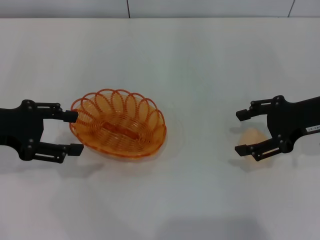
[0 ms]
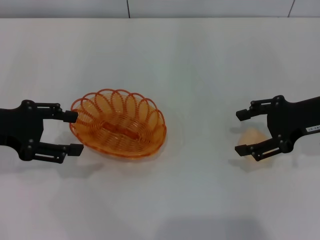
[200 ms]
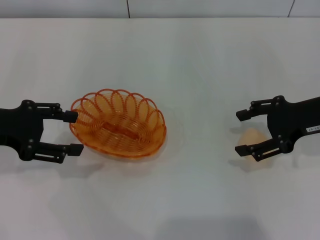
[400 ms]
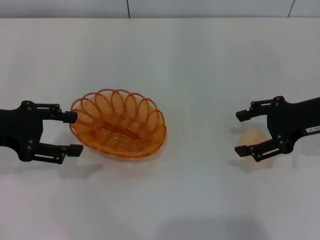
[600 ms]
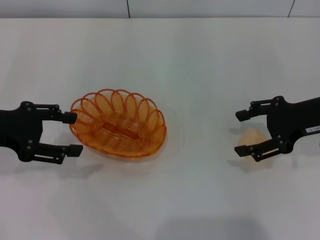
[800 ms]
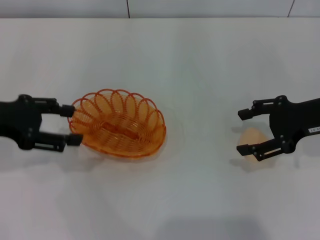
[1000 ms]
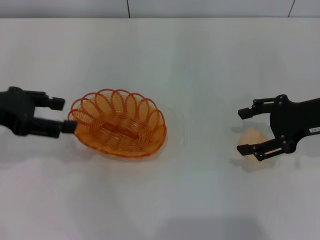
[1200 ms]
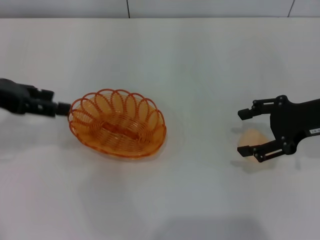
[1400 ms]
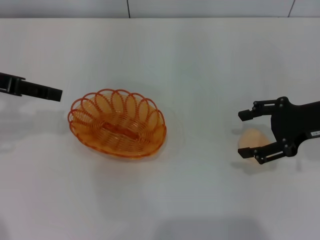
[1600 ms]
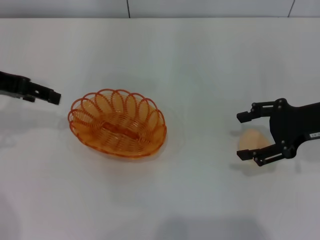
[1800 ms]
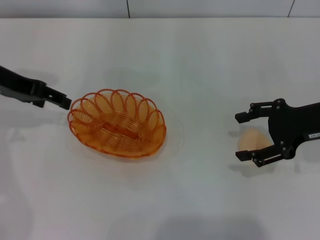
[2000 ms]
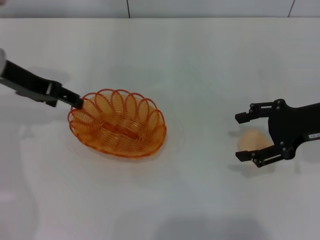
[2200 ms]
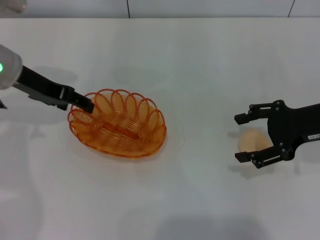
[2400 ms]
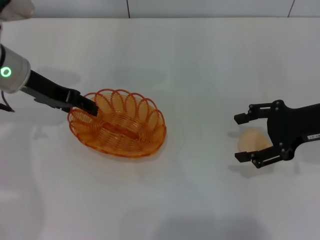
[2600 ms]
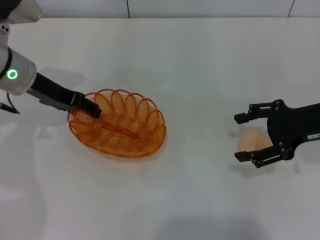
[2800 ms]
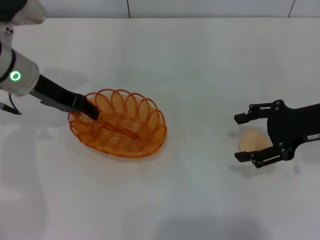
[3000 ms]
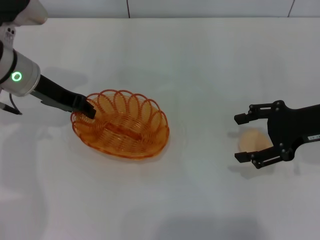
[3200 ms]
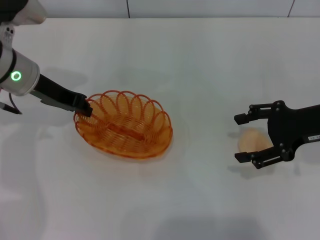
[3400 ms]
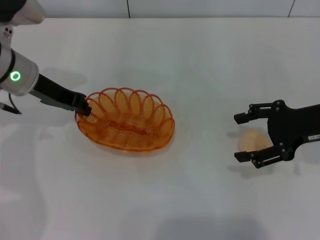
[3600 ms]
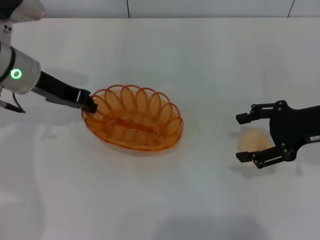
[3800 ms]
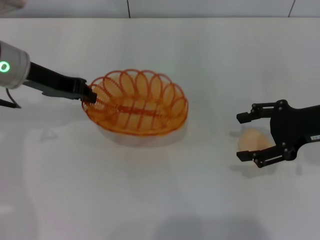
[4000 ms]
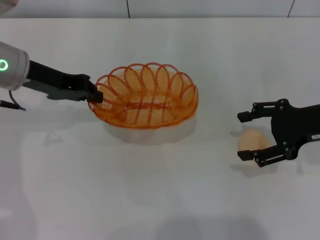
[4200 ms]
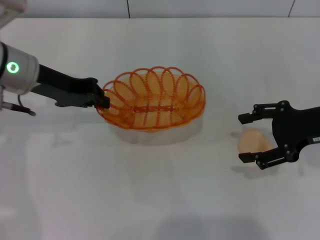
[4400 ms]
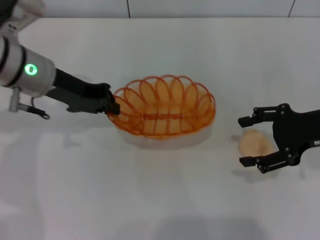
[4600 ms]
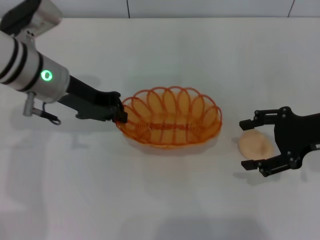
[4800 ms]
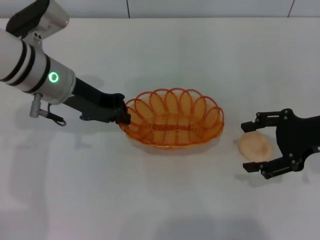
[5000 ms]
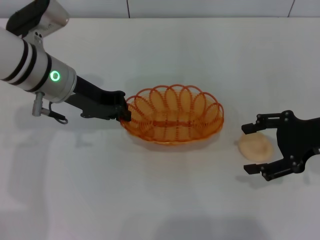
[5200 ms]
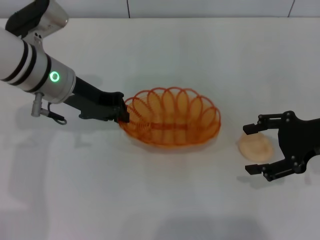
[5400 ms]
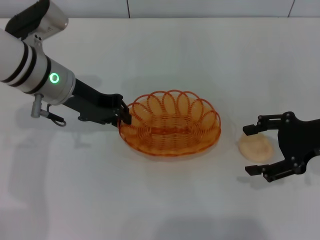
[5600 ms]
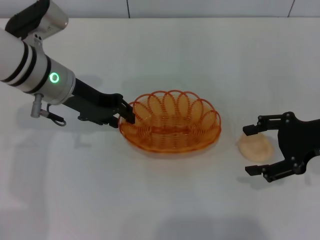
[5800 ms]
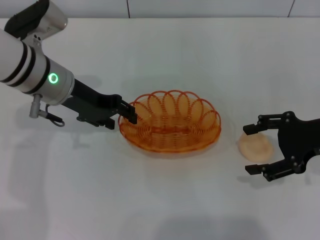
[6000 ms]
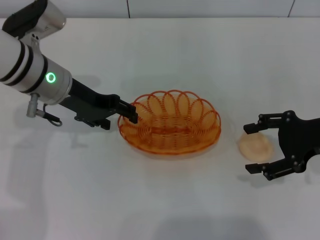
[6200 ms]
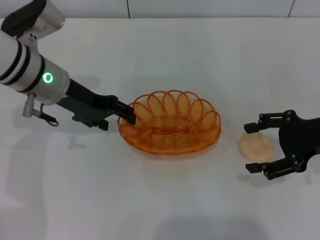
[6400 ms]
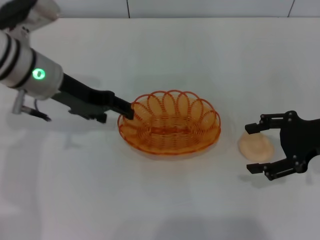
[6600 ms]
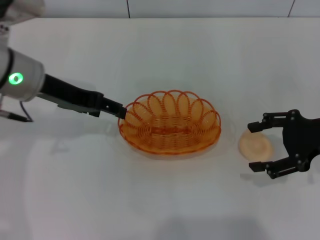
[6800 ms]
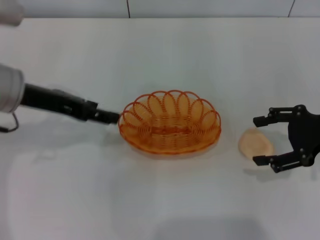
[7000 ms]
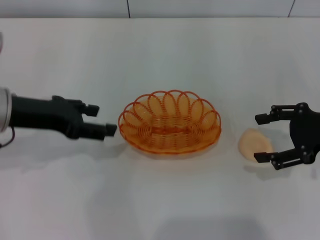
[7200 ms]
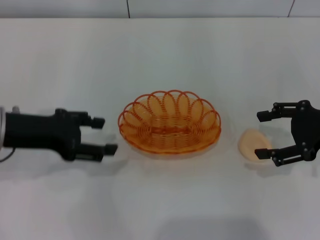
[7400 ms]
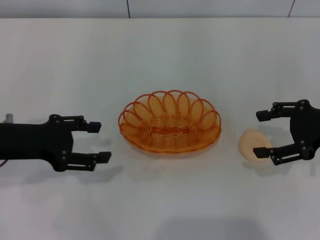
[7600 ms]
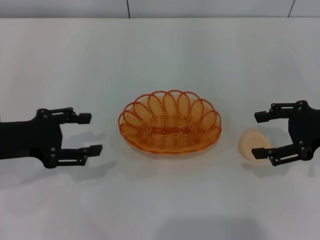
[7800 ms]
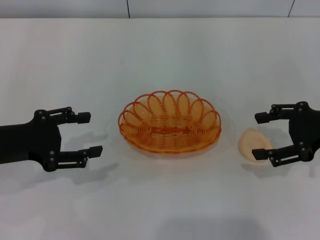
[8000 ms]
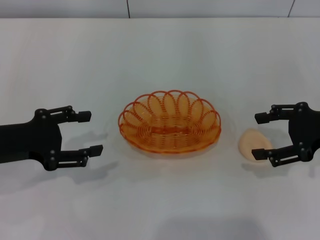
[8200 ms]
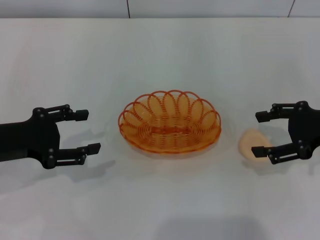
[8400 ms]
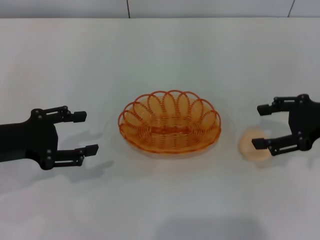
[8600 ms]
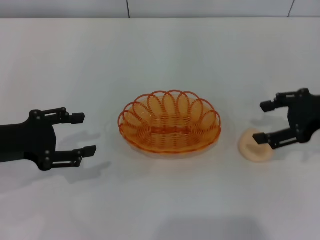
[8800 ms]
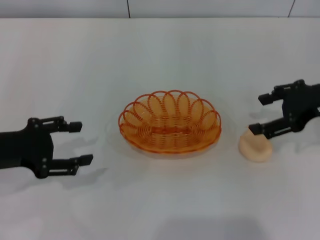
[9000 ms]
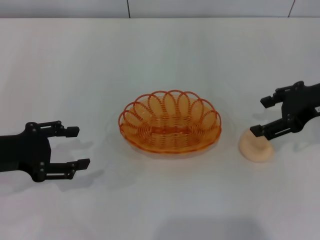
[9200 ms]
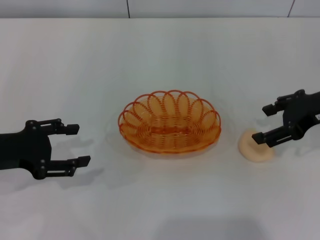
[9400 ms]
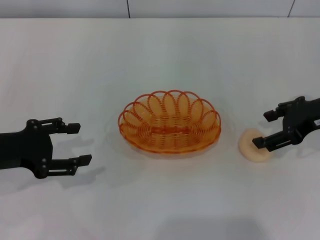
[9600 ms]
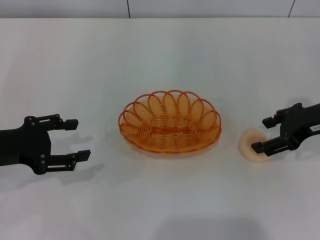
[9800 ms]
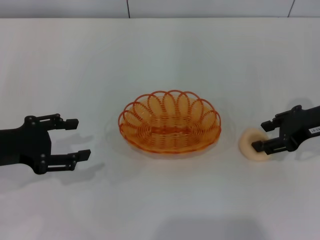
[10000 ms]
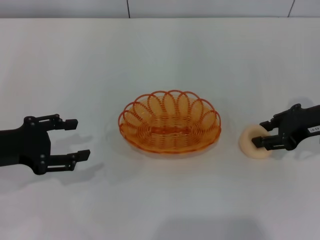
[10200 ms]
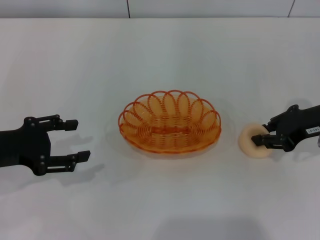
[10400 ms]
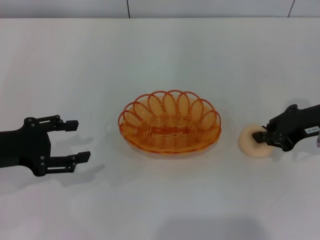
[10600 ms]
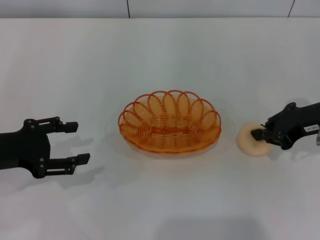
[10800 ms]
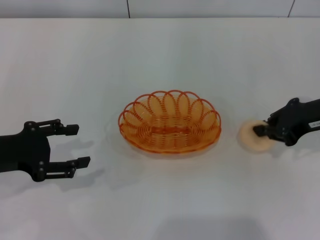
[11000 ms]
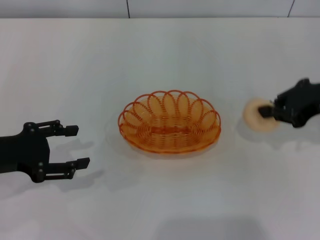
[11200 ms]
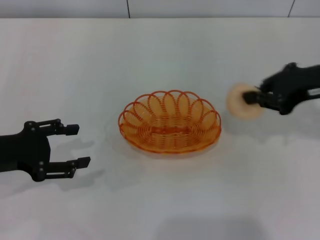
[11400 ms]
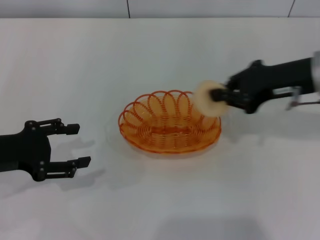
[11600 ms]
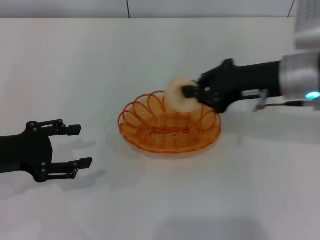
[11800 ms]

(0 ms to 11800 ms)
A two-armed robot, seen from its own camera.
Step, 0 ms - 3800 ms: Pick up the basket with the left gripper.
Step, 4000 ms - 7000 ms: Place the basket in the center of view with the left gripper.
Step, 7200 ms - 11200 ms: Pick up the egg yolk pastry with the right gripper.
0 ms - 1400 ms: The left gripper changes place by roughly 5 cm.
1400 ms - 3000 ms: The left gripper goes about 10 cm to the right, forward and downward.
3000 ms - 4400 ms: The left gripper closes up.
4400 ms - 6000 ms: The left gripper opens its fingers.
6000 ms - 7400 ms: The left gripper is displaced backward and to the left by about 10 cm, and opens its fingers.
7400 ms - 8800 ms: The left gripper ends up approximately 5 cm from where it was.
8800 ms - 10400 ms: The right gripper closes.
10400 ms - 11800 ms: The right gripper goes roughly 10 cm to the left, and closes.

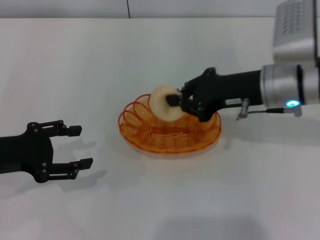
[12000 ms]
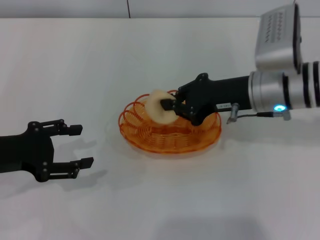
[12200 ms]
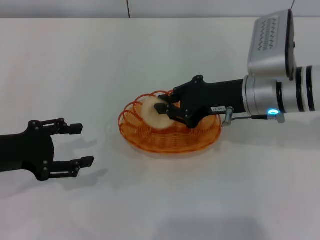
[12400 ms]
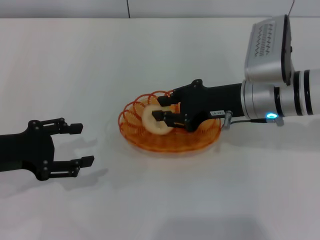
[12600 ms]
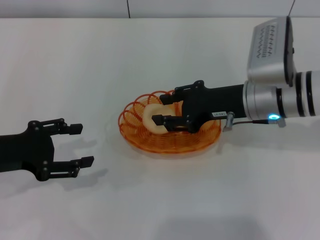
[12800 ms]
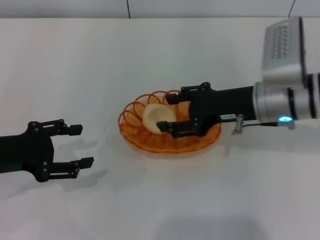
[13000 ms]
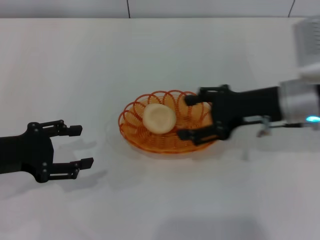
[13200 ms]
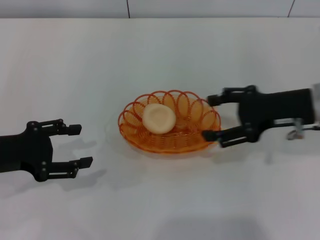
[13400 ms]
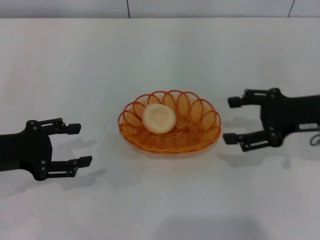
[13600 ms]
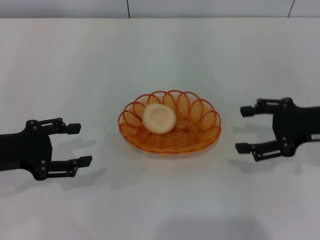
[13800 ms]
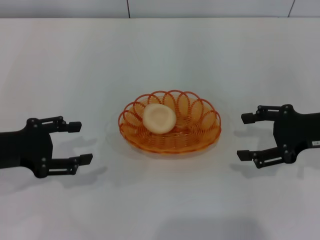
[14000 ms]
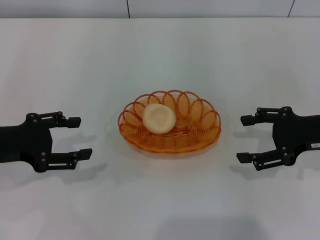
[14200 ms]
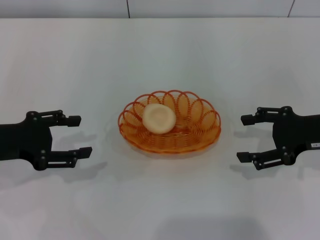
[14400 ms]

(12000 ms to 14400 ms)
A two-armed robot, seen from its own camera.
Step, 12000 ms - 13000 ms: Place the egg yolk pastry into the basket with the right gripper.
12000 ms - 13200 ms: The right gripper opens up.
13200 ms - 14400 ms: The right gripper heads to the right, covering roughly 10 cm.
